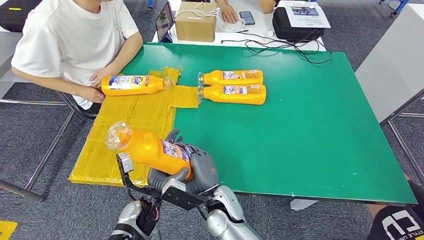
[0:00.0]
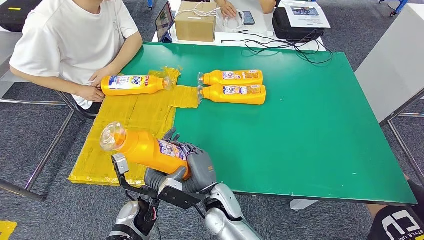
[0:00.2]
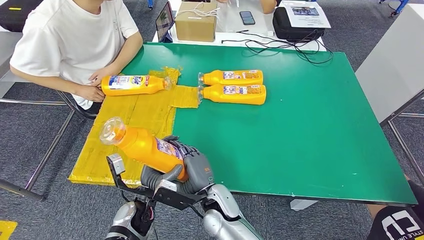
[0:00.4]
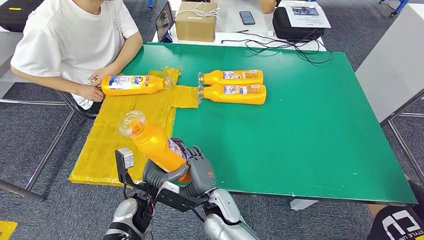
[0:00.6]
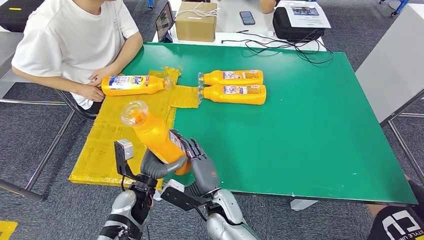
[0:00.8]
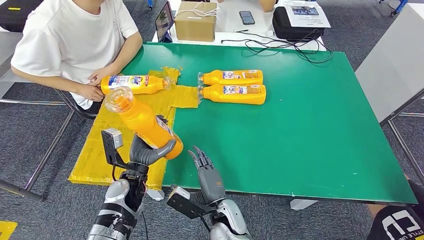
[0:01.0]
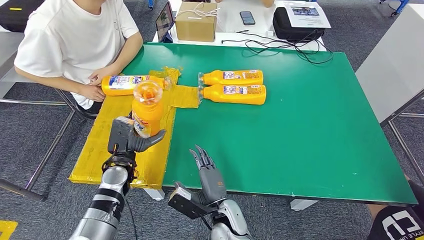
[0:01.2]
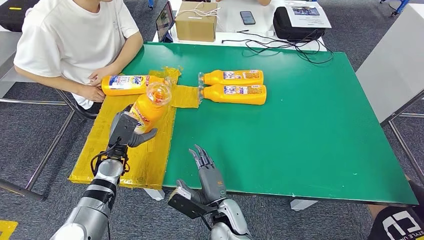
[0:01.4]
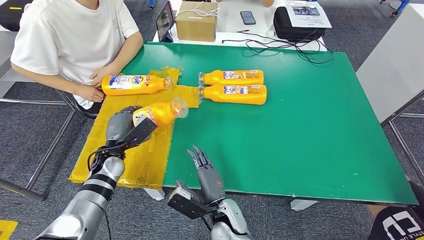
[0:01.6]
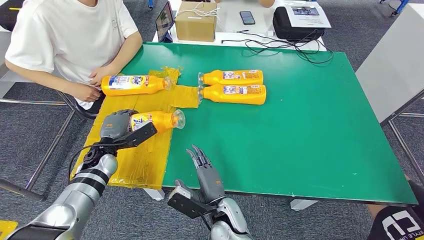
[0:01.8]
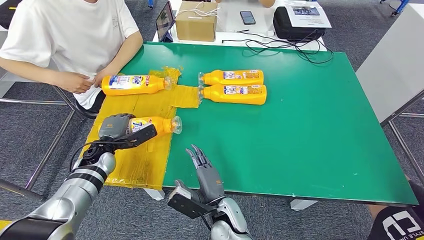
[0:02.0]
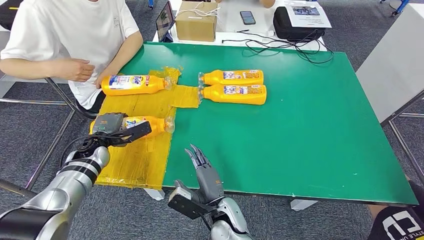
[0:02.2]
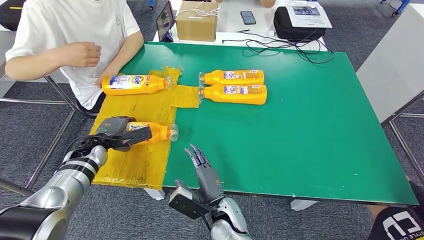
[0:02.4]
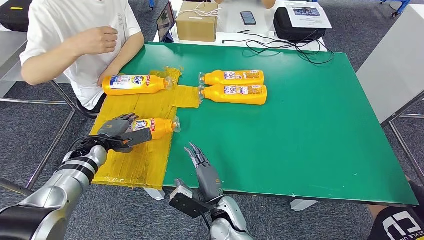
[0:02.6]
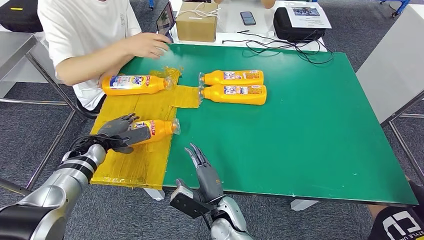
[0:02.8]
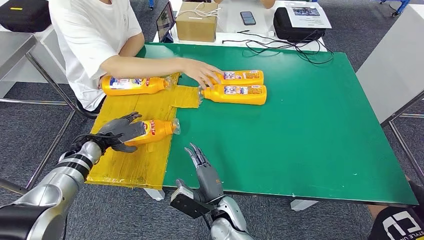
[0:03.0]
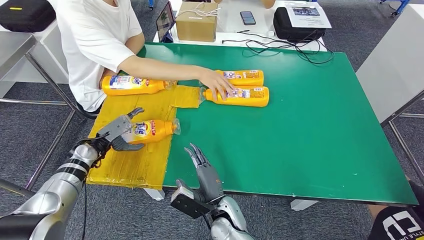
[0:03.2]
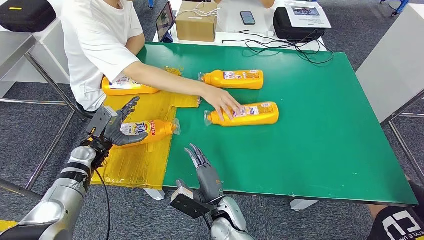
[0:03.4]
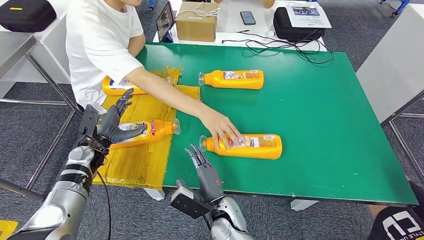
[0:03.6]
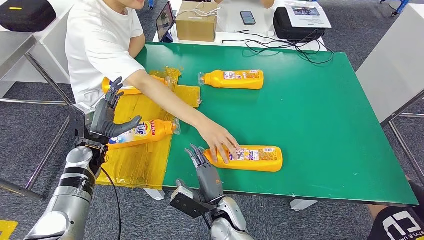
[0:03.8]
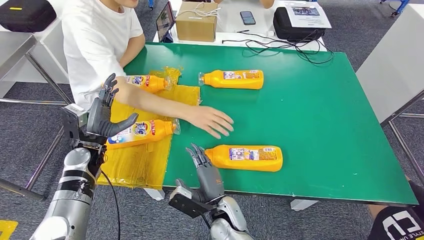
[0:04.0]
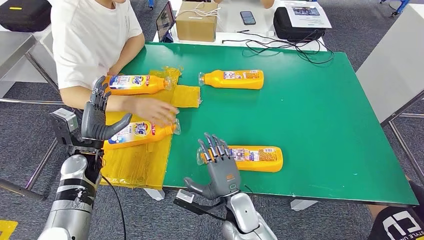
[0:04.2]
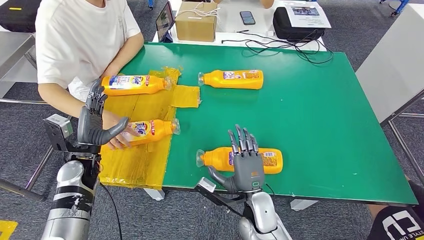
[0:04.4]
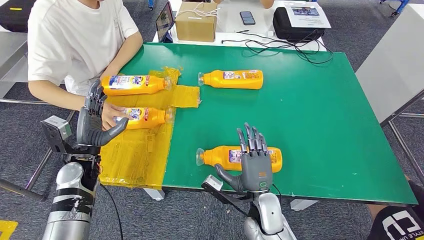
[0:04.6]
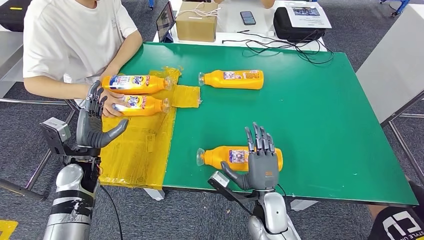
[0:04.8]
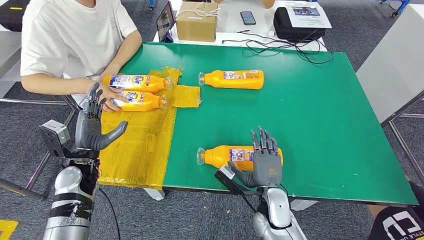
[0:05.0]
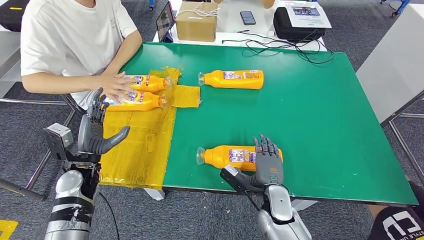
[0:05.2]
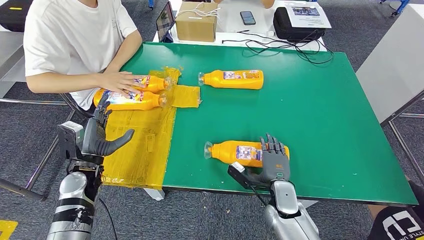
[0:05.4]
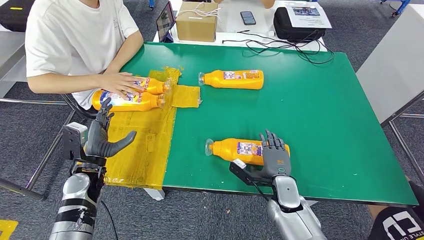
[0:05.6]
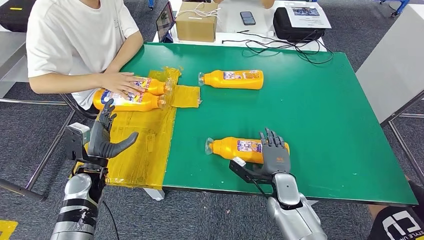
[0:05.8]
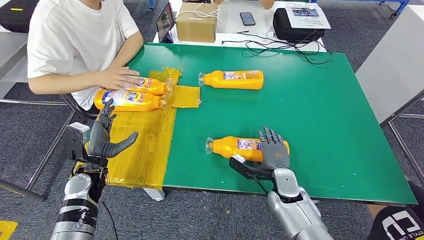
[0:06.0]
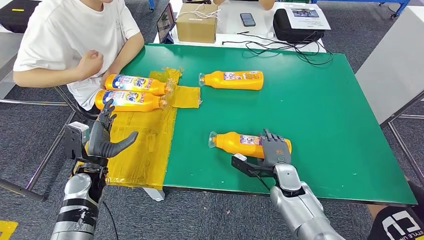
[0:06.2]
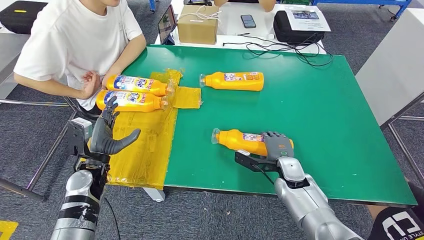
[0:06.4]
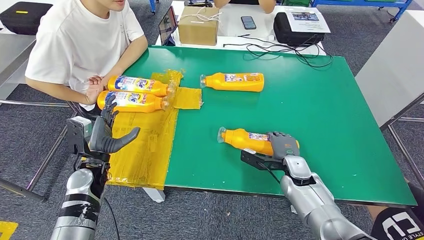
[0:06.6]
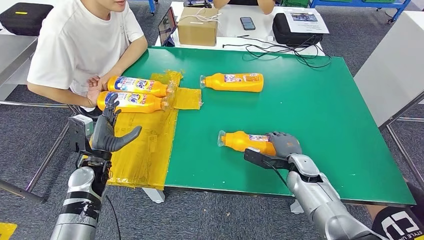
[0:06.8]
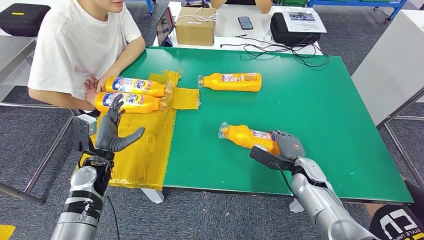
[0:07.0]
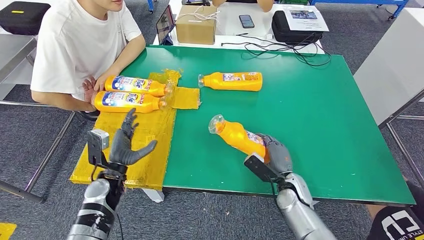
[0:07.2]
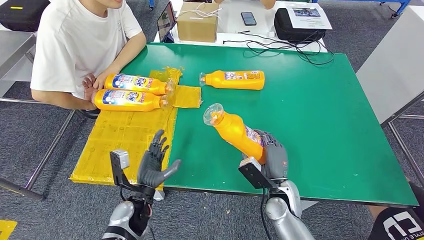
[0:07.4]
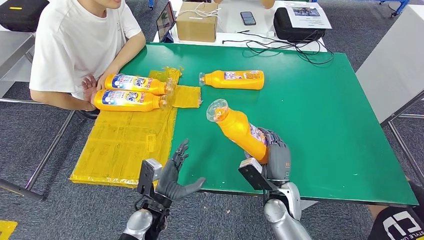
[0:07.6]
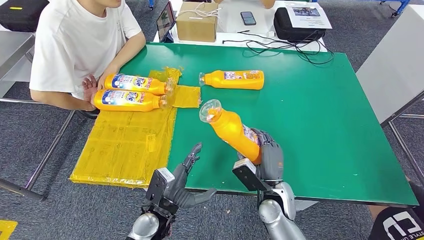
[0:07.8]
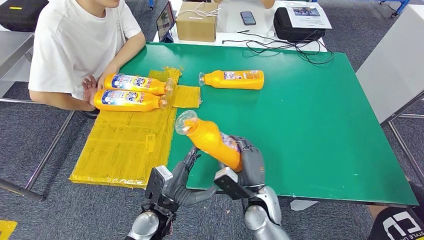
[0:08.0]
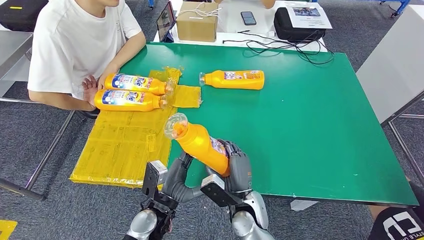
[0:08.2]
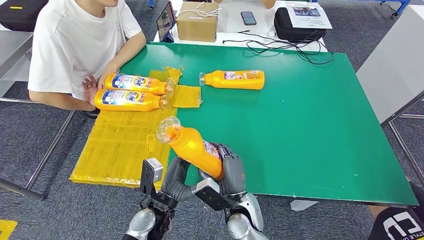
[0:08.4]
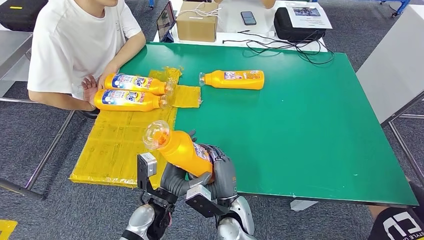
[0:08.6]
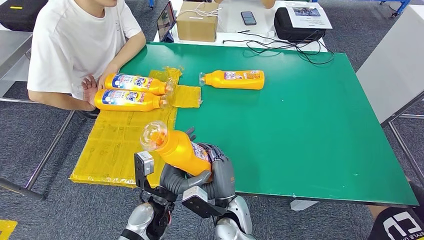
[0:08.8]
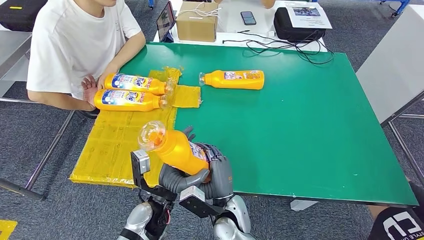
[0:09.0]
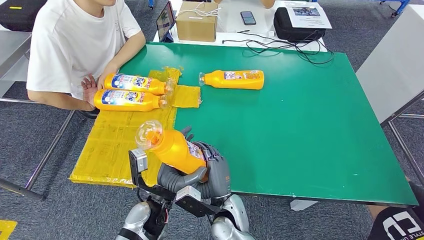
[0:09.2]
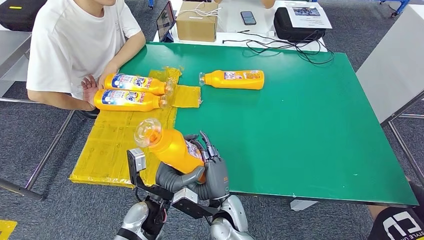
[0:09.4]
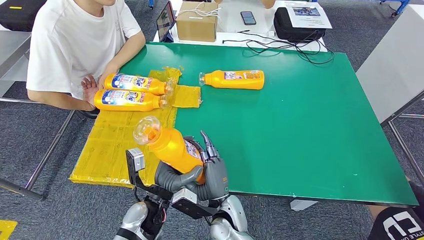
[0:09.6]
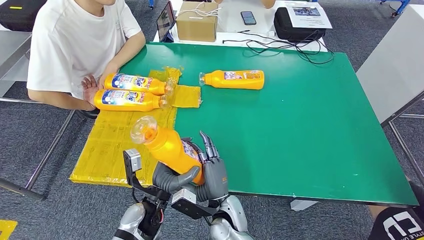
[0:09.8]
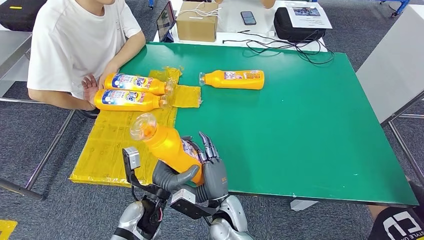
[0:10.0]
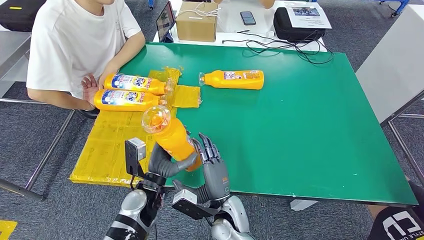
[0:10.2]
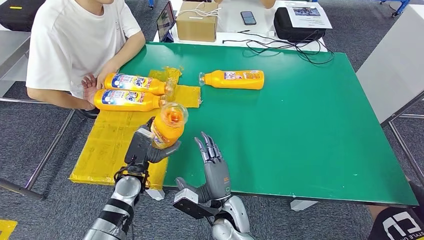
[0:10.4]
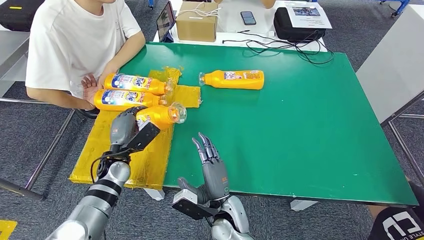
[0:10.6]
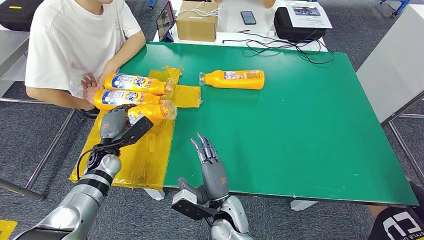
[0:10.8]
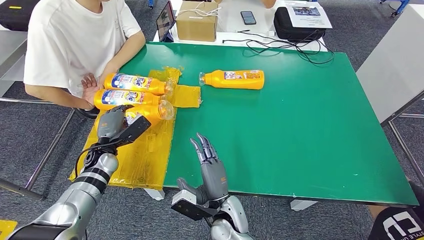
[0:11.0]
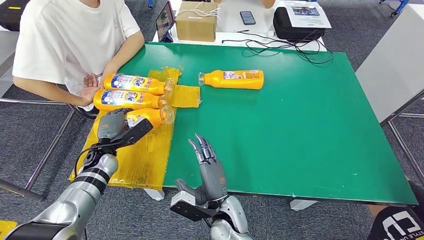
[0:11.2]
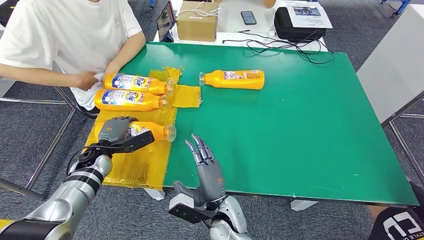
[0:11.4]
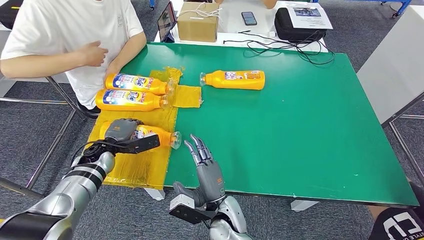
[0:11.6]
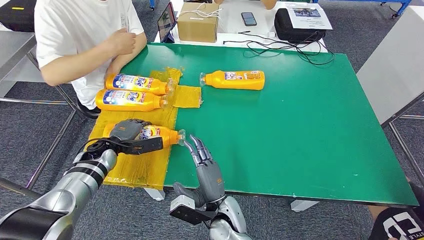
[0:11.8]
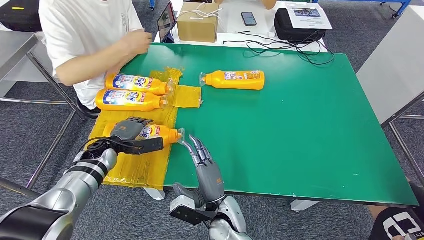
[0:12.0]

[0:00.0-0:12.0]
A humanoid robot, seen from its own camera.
Step, 0:00.0 to 0:04.0: Flip the fast-moving consumer goods bottle to the front side.
Step, 0:04.2 to 0:07.8: Pick up the fast-moving consumer goods bottle from the table.
0:00.0 to 0:01.6: The left hand moves to the left and forward, approximately 20 cm.
0:07.6 to 0:09.0: The right hand heads to the left, covering some 15 cm.
0:09.0 to 0:10.4: The left hand shifts about 10 cm to the left and forward.

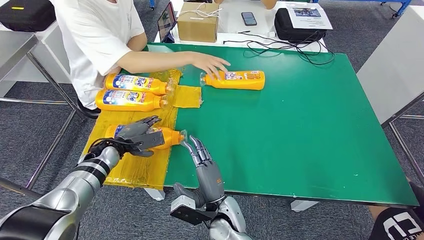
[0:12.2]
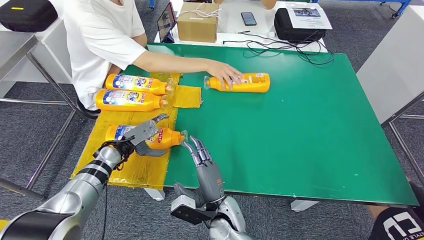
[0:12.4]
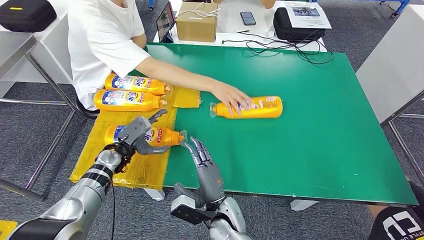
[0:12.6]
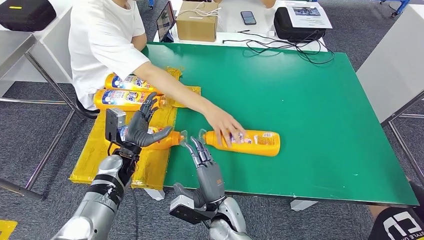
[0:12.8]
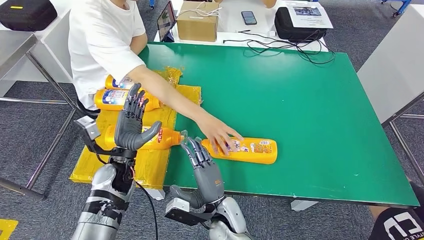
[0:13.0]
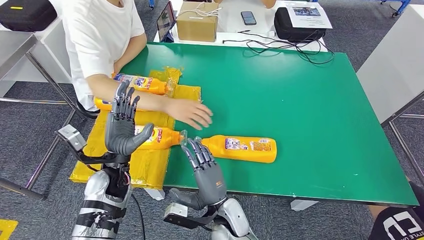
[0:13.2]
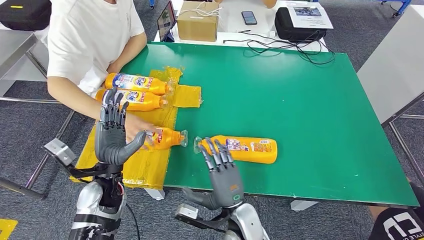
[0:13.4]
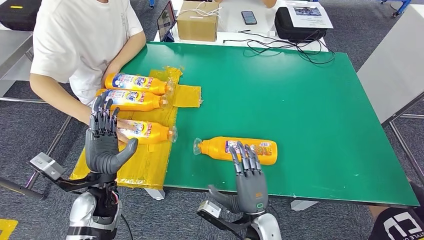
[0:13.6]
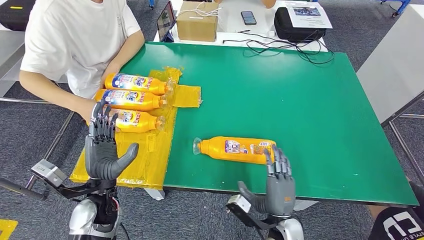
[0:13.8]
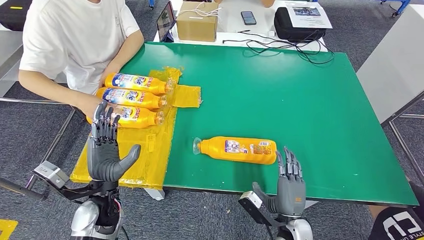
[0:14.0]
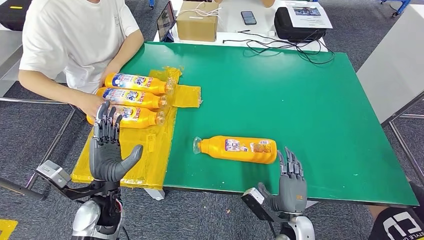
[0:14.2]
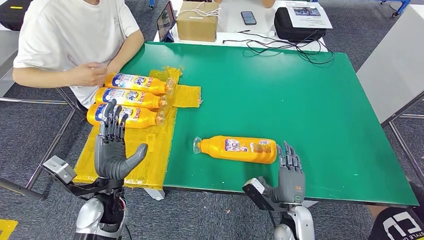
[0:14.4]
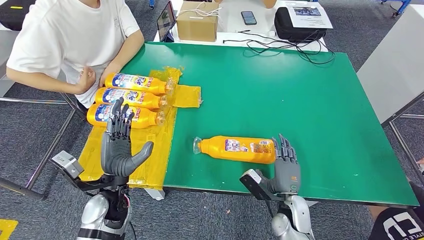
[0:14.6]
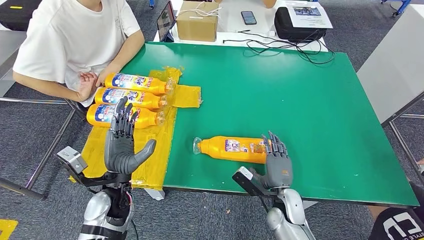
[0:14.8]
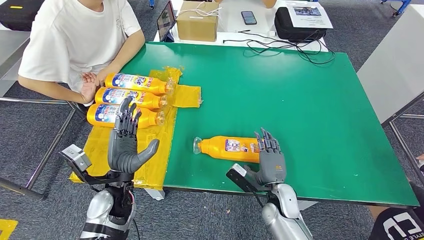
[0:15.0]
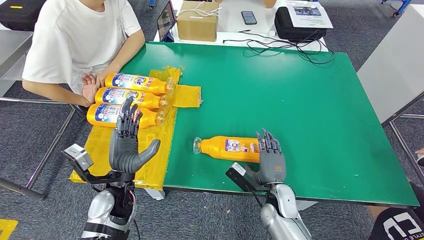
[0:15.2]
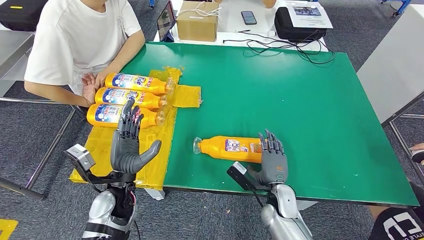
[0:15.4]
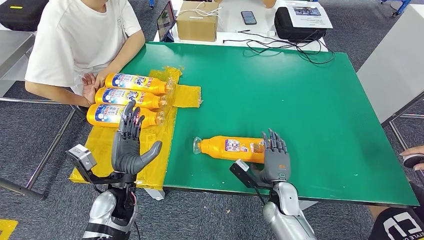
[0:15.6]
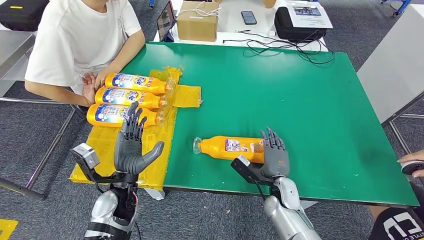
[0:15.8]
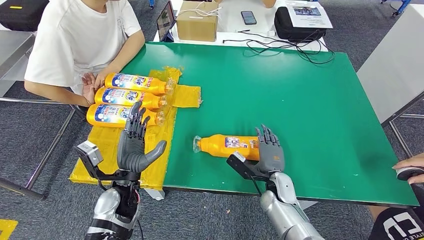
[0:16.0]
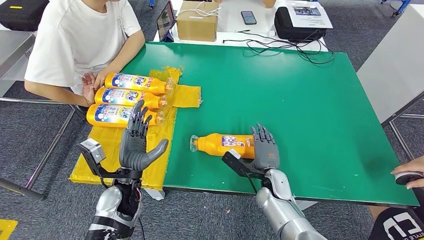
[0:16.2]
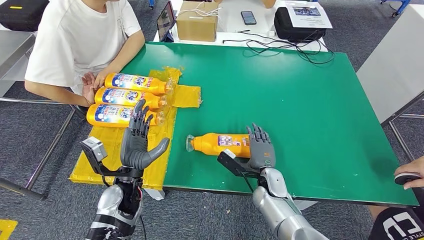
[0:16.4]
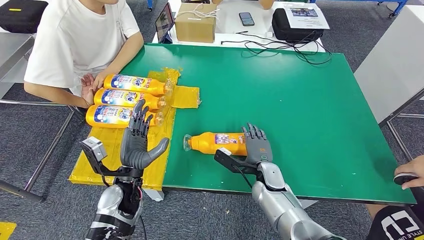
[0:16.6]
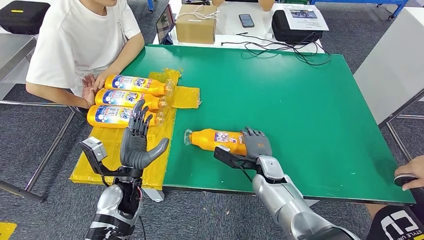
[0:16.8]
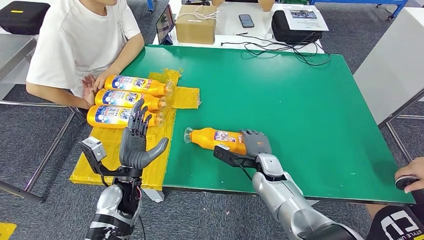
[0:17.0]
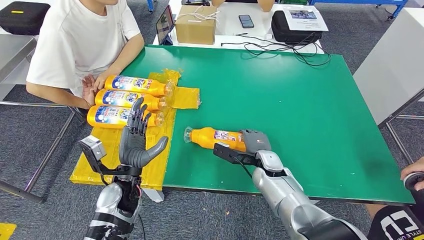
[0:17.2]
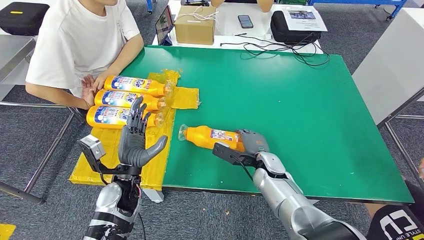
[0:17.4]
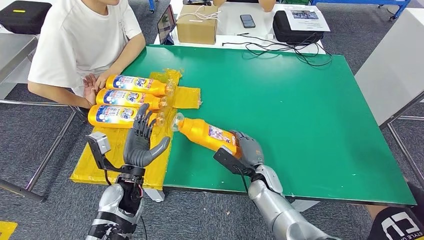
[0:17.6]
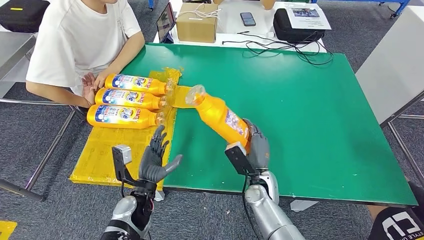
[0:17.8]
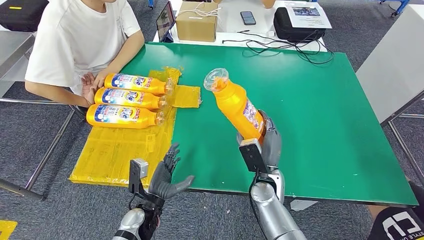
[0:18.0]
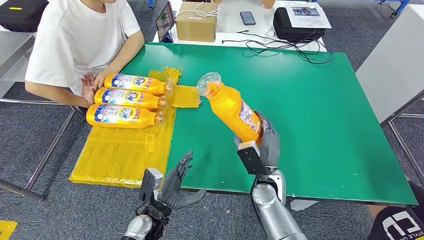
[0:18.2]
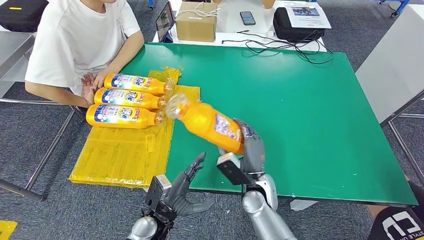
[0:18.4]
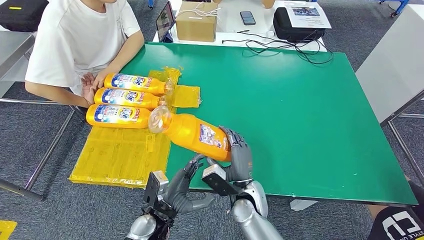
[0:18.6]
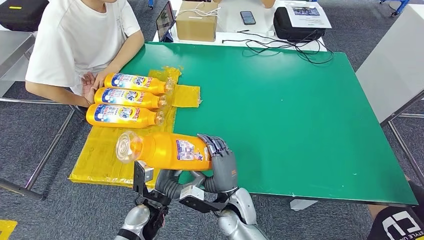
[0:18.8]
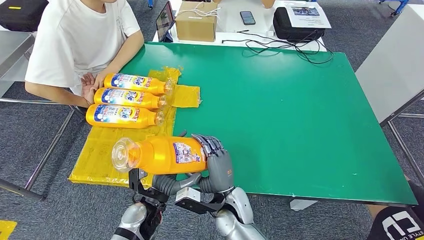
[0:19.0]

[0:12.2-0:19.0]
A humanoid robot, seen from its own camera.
Step, 0:12.2 to 0:15.2: Flip the fast-moving consumer goods bottle to the front side.
0:15.0 to 0:16.2: There are only small adjustments of the hands.
